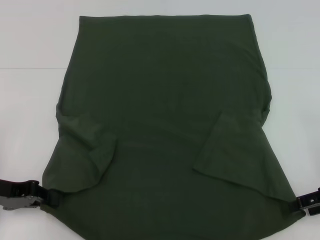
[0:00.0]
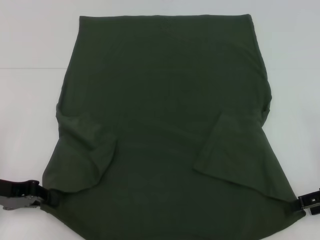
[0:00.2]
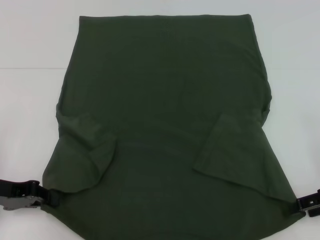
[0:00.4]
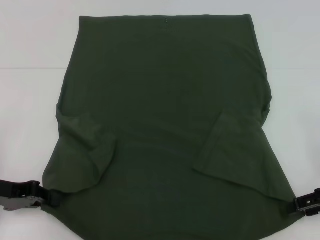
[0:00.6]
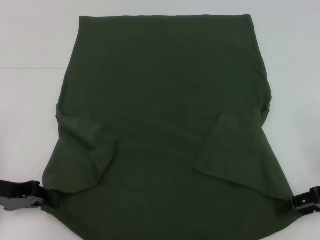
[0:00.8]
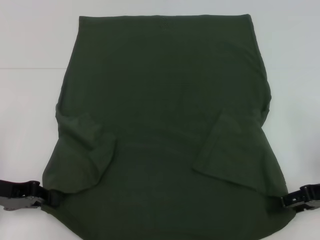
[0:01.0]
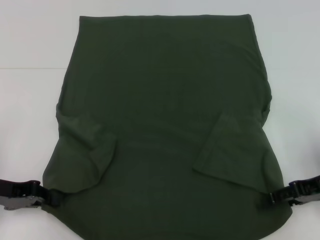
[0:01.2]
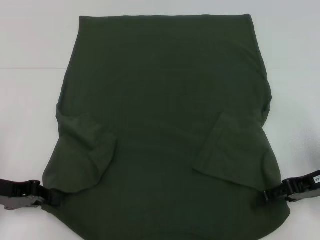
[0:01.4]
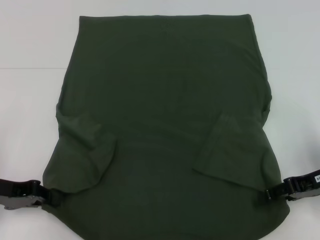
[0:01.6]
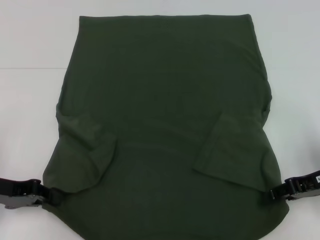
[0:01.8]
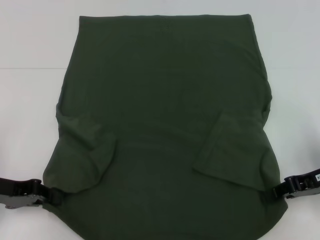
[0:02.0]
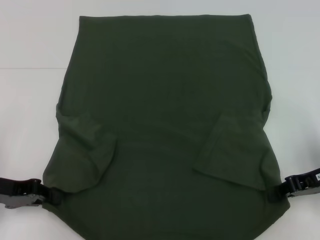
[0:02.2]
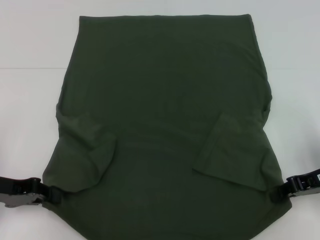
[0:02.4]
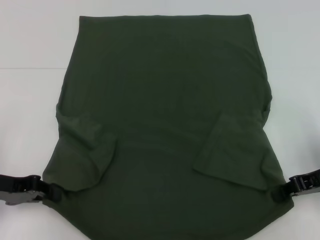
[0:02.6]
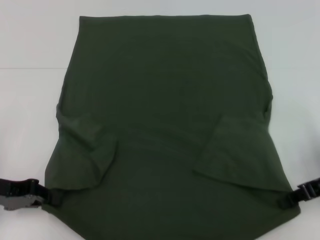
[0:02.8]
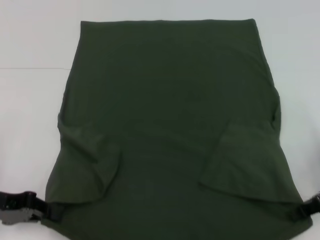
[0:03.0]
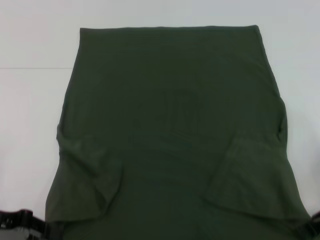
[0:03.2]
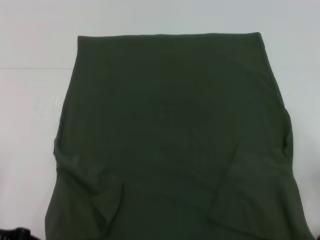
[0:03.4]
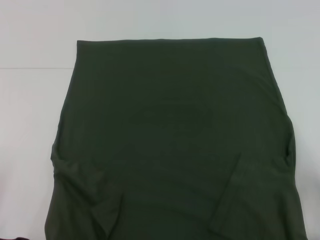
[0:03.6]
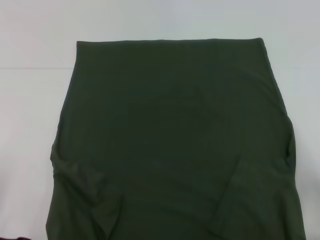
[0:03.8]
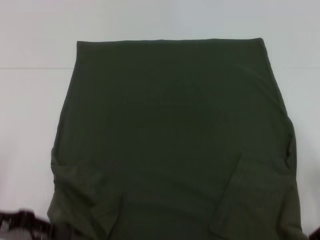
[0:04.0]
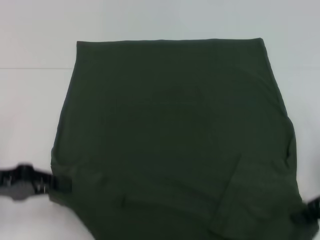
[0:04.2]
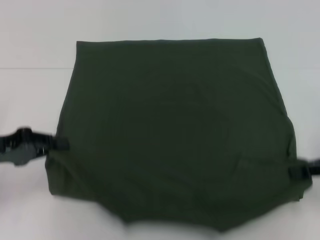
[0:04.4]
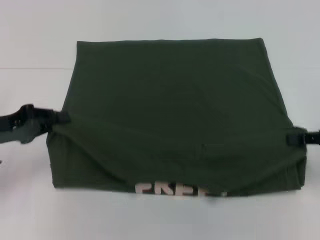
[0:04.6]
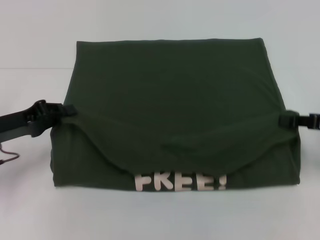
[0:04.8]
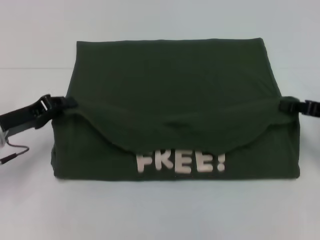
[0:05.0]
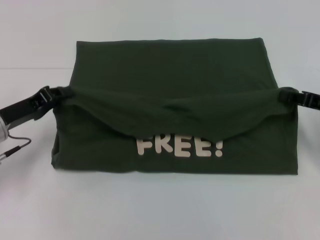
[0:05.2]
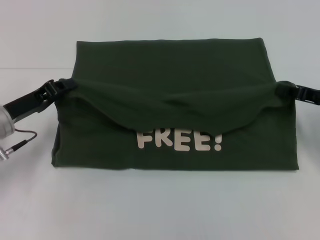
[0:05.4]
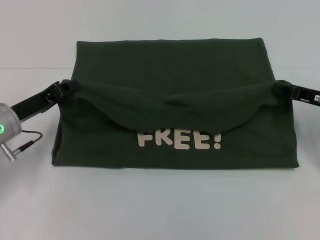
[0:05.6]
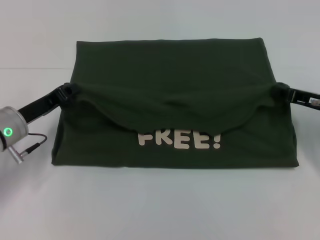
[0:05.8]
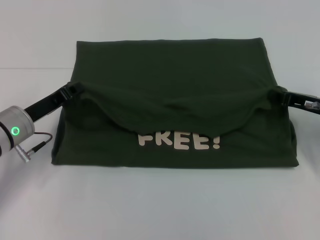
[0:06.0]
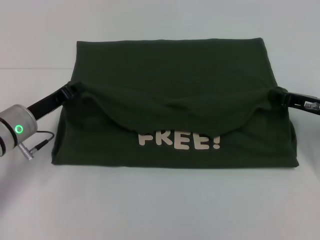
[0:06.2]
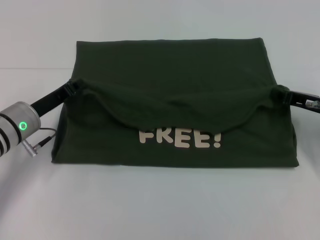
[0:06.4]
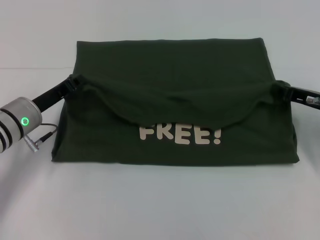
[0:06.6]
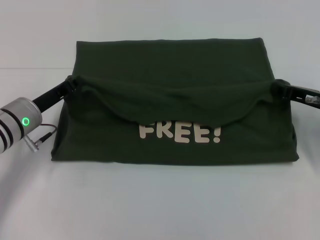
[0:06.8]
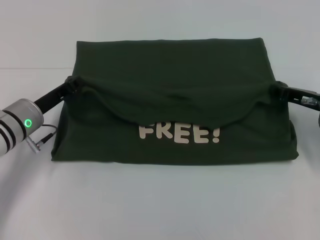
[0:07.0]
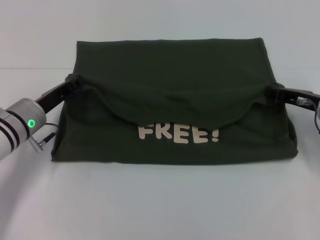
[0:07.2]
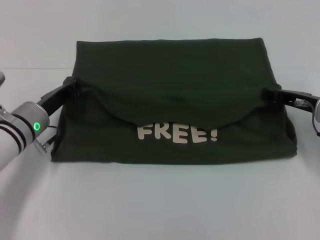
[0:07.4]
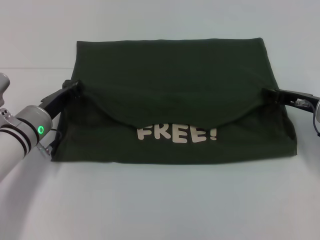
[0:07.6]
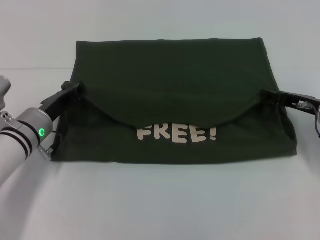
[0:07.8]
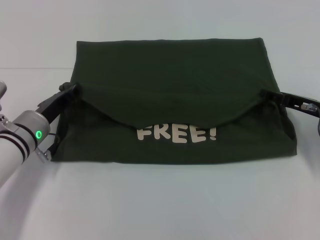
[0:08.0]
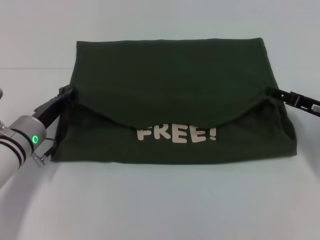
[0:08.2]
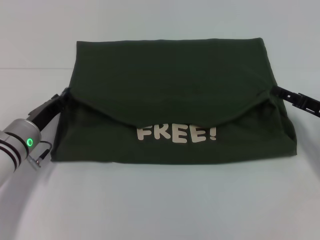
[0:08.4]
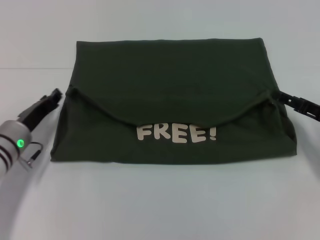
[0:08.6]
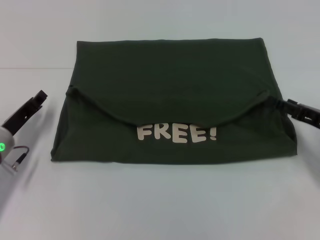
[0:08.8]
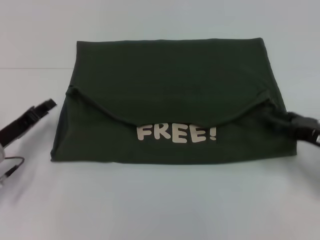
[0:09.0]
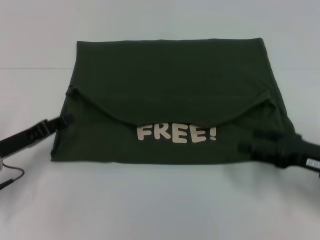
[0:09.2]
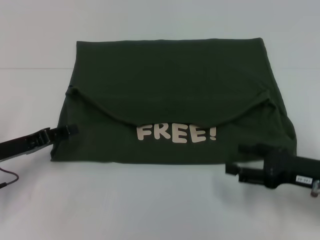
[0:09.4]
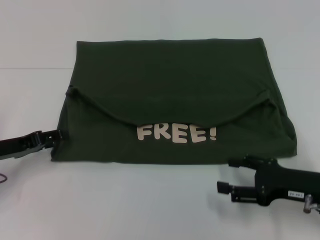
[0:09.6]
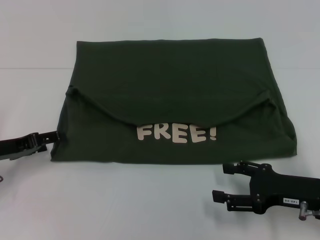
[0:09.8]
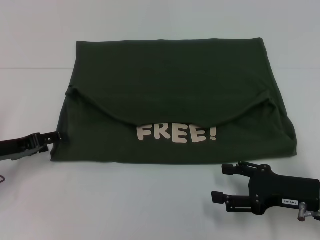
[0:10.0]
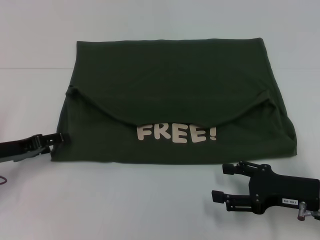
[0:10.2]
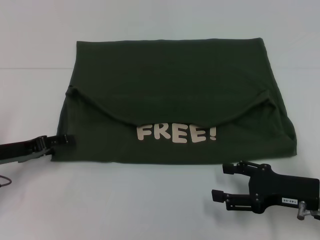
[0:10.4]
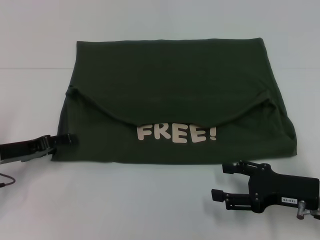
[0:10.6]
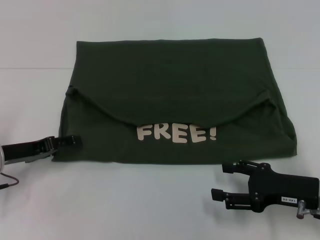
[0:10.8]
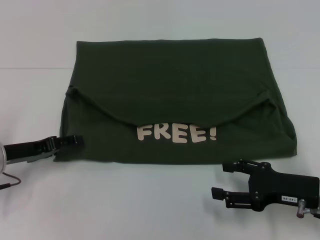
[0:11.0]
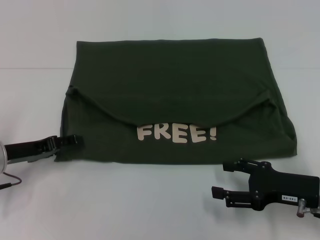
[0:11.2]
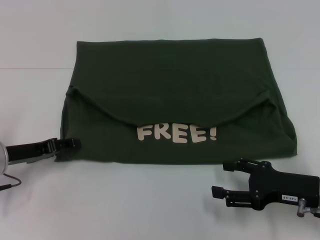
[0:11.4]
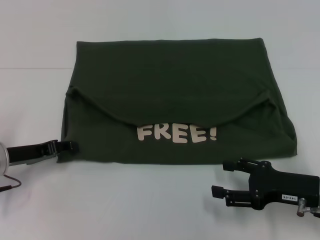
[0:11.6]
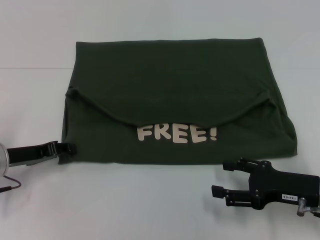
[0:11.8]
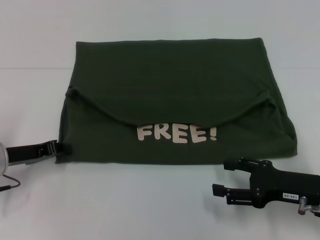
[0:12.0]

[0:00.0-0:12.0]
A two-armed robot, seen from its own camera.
Step, 0.0 to 2.6 s: Grab the bottom right corner with your right hand.
Step, 2.8 to 8.4 s: Fold the clothes with your left hand.
Step, 2.8 to 8.4 s: Fold the clothes with your right hand.
0.0 to 1.6 s: The right gripper shifts by about 5 cm.
1.6 to 3.0 s: The right gripper closes.
4.4 to 6.0 s: The left gripper moves to the right, forward and downward, approximately 10 cm; the right gripper heads forward and downward, covering about 10 cm.
6.0 to 7.6 s: The grippers move only a little.
7.6 to 9.0 s: The right gripper heads backward, covering approximately 10 cm, and opens, while the left gripper goes approximately 10 cm to the left and backward, and opens its fingers.
9.0 to 10.4 s: The left gripper opens up. The right gripper ends up some 5 cm from where it was.
10.4 to 12.0 s: The left gripper closes.

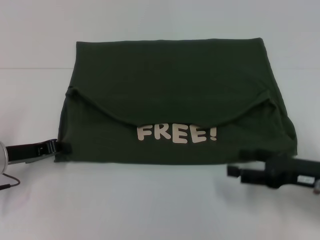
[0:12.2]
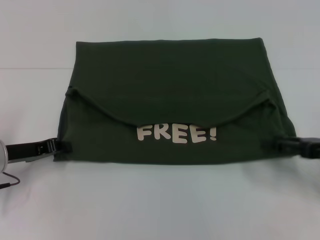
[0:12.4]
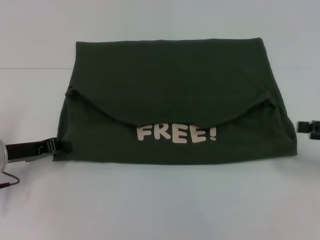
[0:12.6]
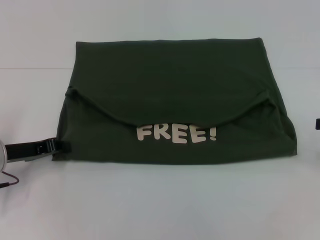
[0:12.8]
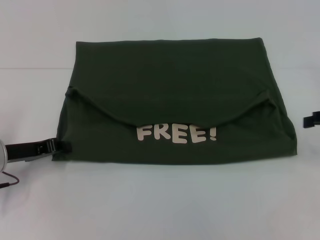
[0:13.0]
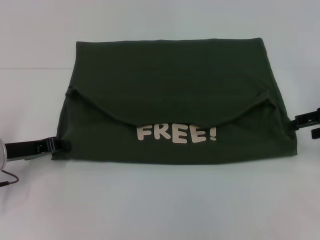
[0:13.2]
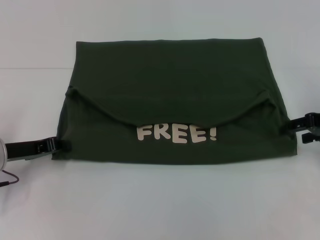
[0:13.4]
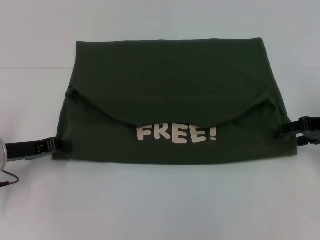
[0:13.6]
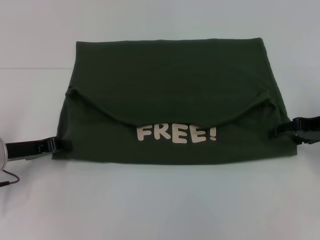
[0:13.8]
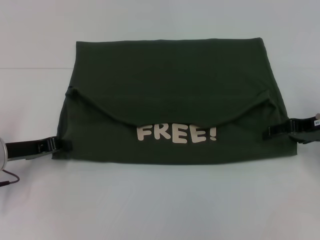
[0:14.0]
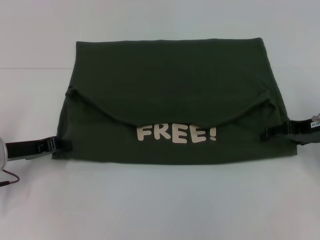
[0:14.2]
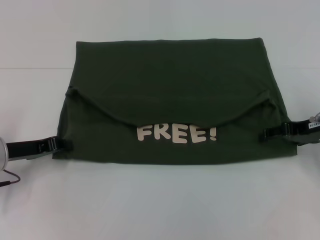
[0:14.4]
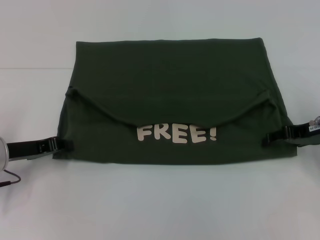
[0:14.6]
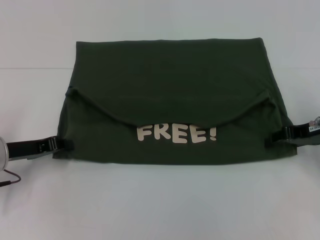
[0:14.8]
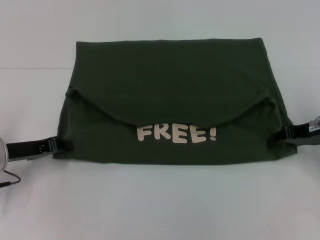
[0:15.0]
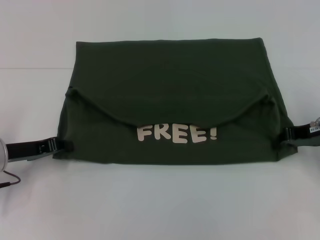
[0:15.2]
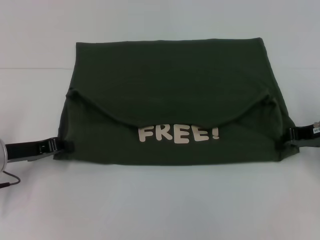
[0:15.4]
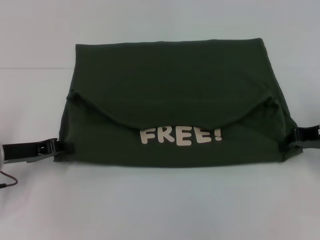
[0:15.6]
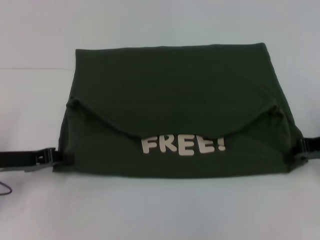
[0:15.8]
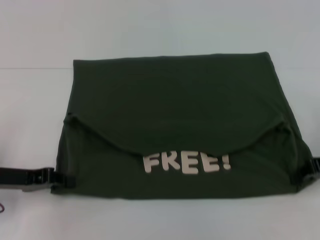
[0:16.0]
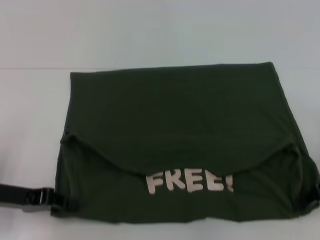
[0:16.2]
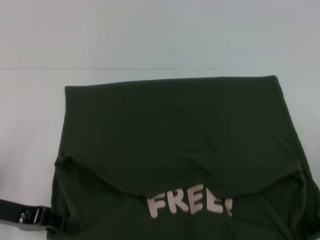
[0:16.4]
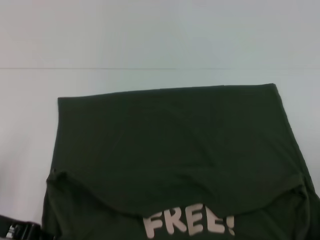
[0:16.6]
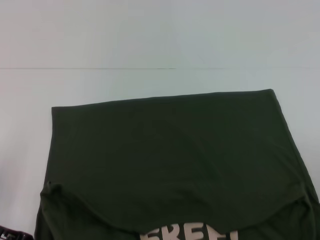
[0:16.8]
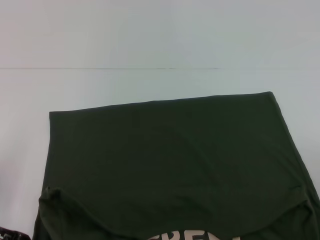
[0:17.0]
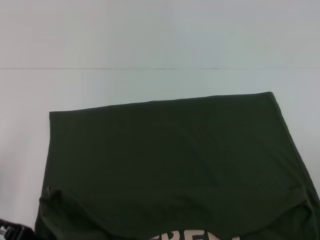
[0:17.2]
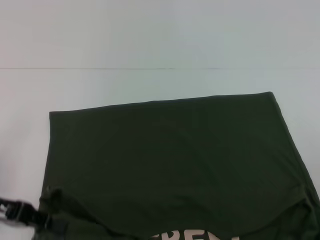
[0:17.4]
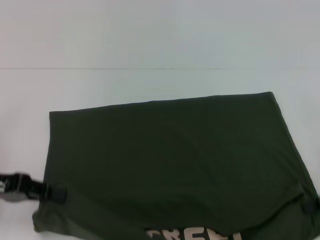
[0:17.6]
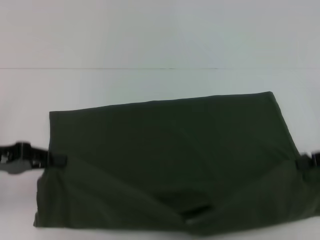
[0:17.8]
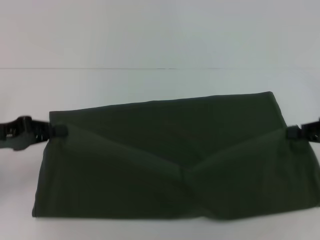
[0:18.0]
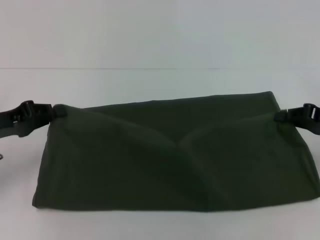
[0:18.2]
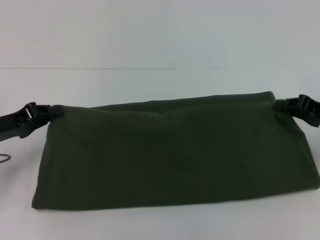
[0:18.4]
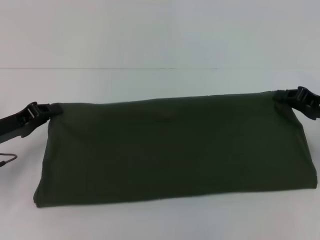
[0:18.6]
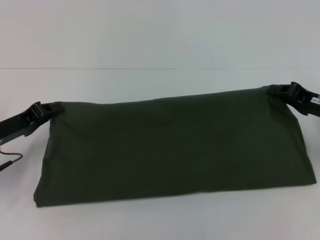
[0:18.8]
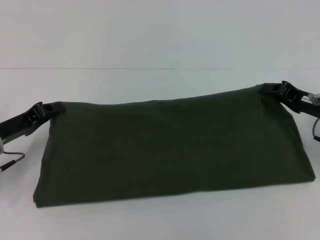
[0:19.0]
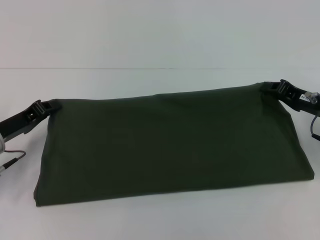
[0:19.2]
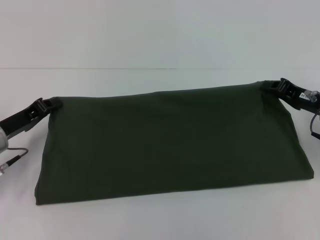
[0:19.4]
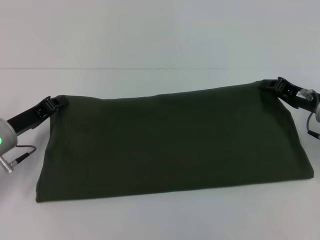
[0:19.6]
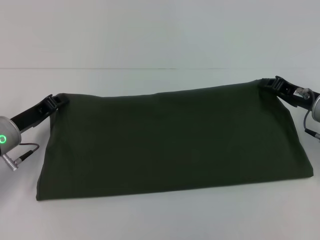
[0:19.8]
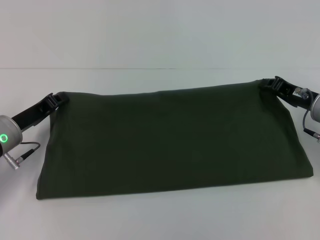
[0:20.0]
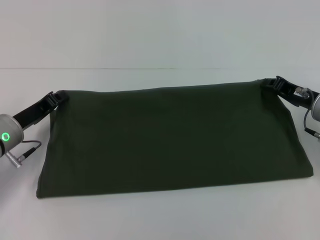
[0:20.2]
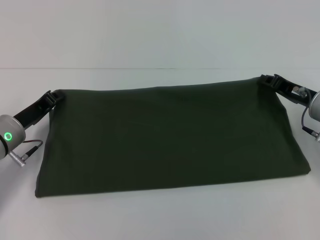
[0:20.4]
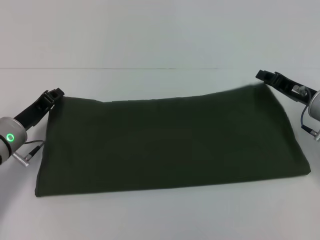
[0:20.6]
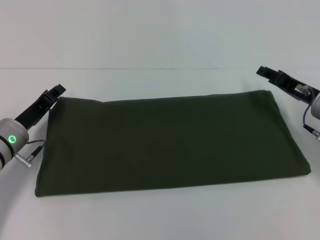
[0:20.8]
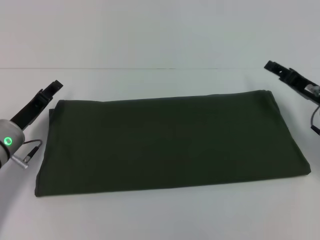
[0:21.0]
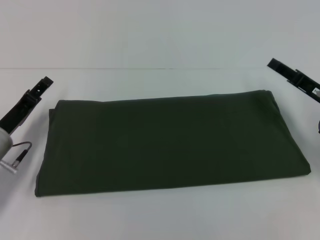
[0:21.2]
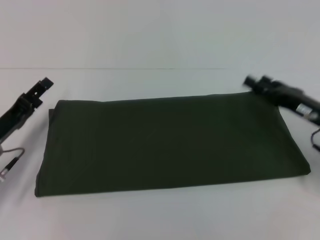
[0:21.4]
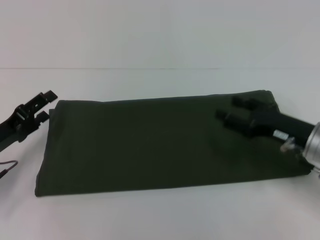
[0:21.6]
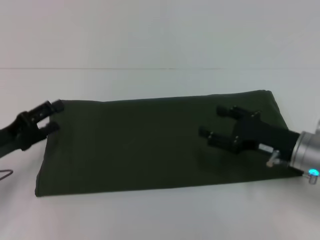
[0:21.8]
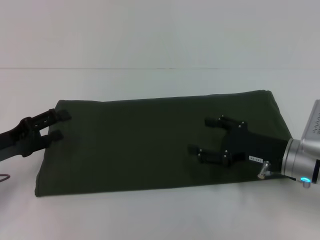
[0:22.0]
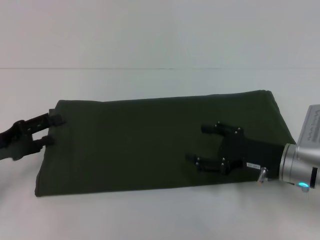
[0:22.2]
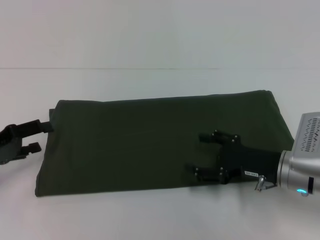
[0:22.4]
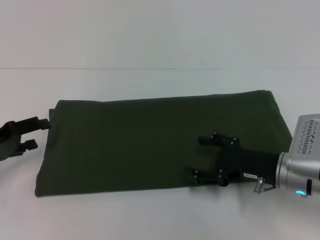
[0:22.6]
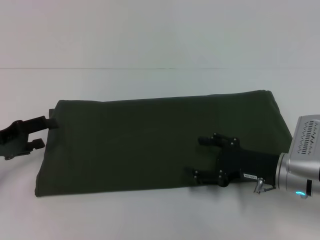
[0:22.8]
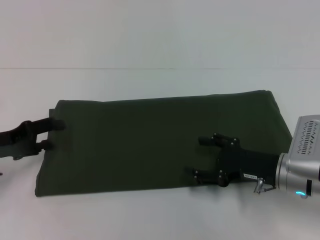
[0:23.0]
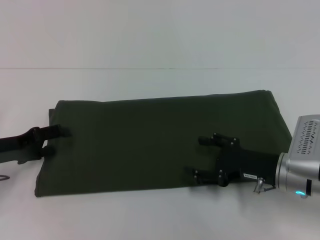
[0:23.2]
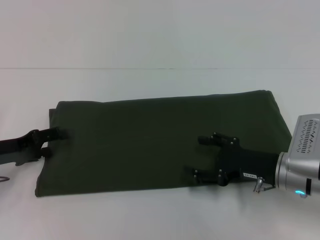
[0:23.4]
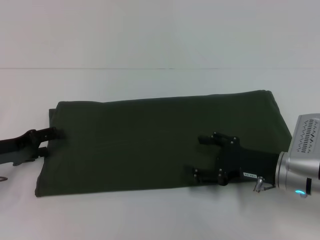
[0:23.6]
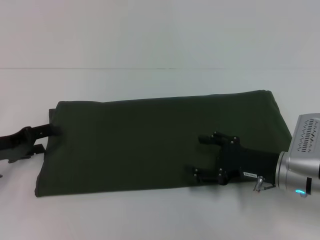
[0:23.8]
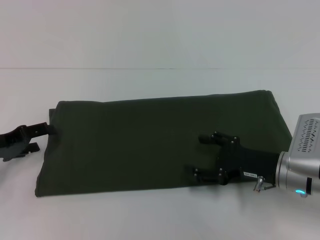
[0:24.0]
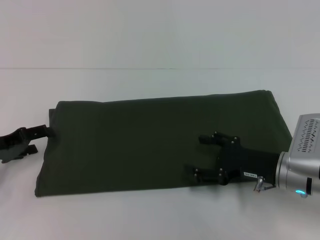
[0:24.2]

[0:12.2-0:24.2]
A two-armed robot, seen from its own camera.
Step, 12.2 to 16.8 s: Pull the clothes with your left hand.
Step, 12.2 to 16.8 s: Pull the clothes with your right hand.
Step, 17.0 to 20.8 s: Fold the clothes with your right hand.
12.2 to 13.8 s: The right gripper travels forward and upward by approximately 10 cm, and goes to the right and returns, roughly 10 cm each way.
13.8 to 15.2 s: The right gripper closes.
15.2 to 16.6 s: The grippers both shift backward by roughly 10 cm.
16.6 to 18.2 s: The two grippers go some 5 cm forward.
18.2 to 19.8 s: The right gripper moves to the left, approximately 5 cm. Meanwhile the left gripper changes place by approximately 5 cm.
19.8 to 21.2 s: The right gripper opens up, while the left gripper opens.
21.2 to 22.6 s: The right gripper travels to the left and backward by roughly 10 cm. The left gripper goes approximately 5 cm to the left, and opens.
22.6 to 24.2 s: The grippers make only small movements.
